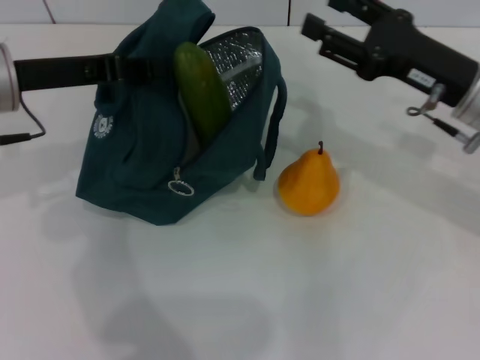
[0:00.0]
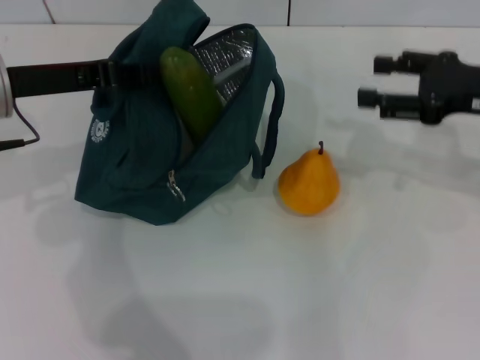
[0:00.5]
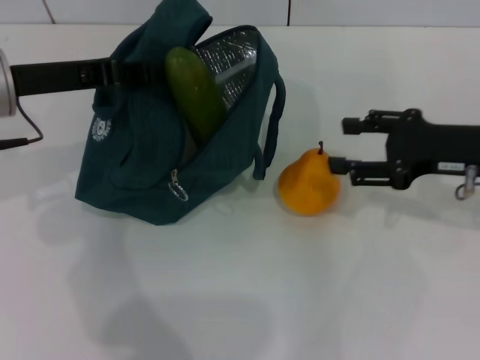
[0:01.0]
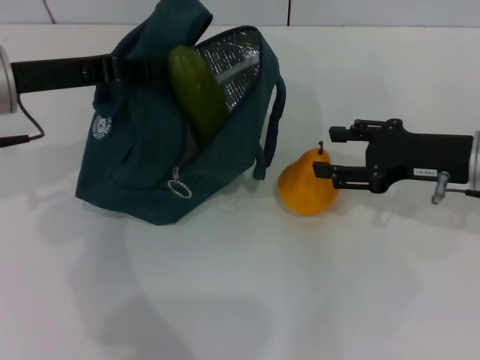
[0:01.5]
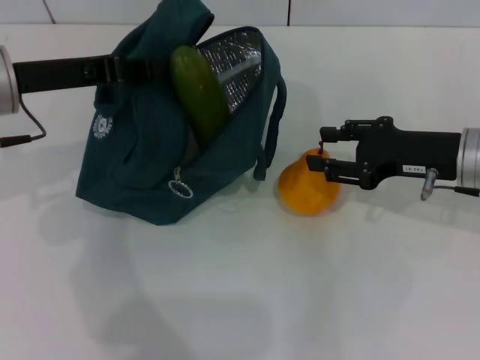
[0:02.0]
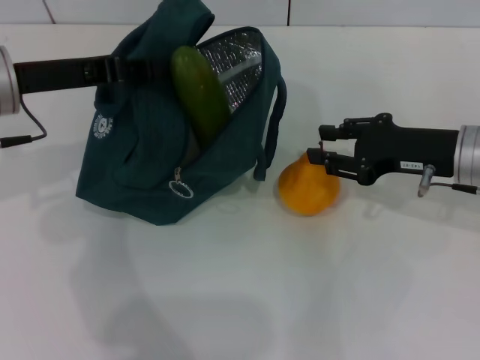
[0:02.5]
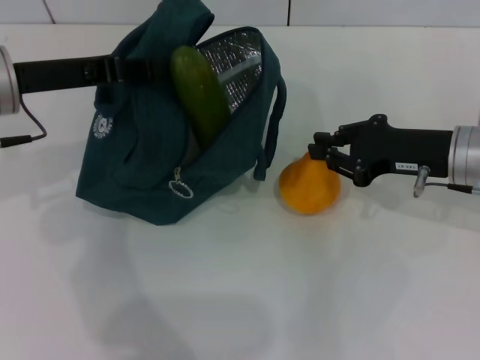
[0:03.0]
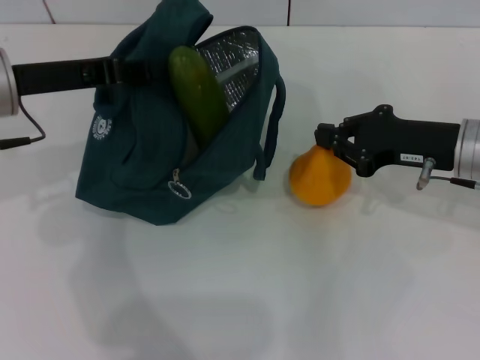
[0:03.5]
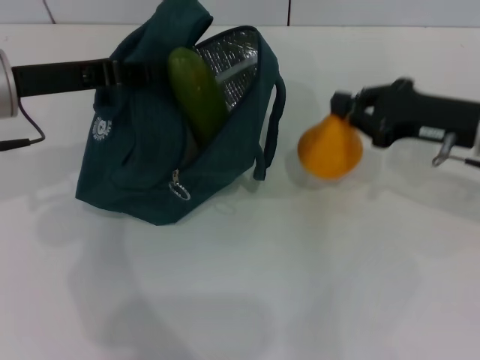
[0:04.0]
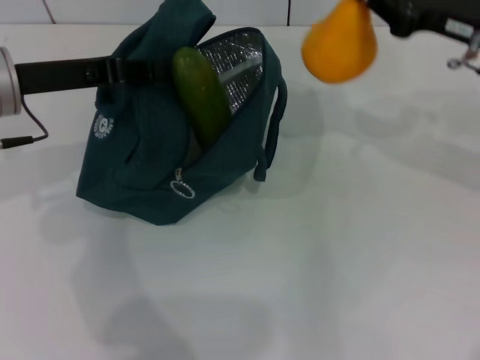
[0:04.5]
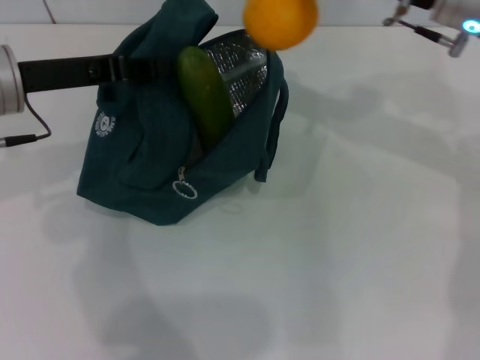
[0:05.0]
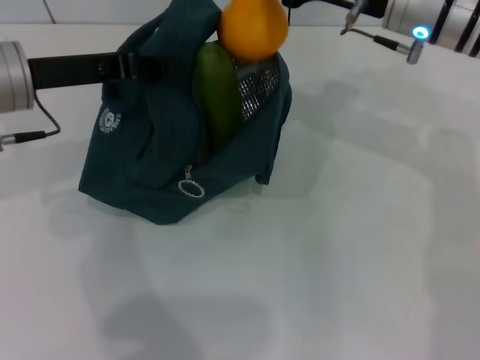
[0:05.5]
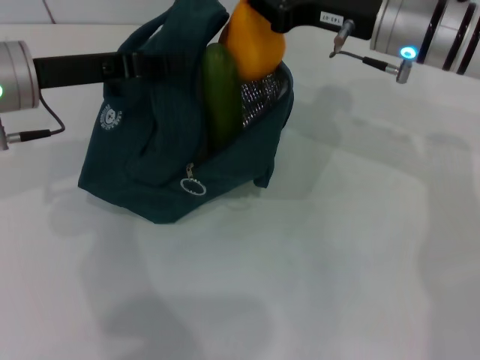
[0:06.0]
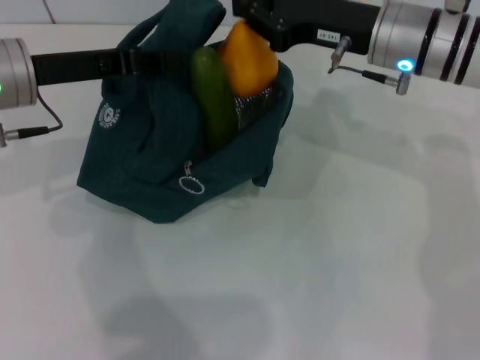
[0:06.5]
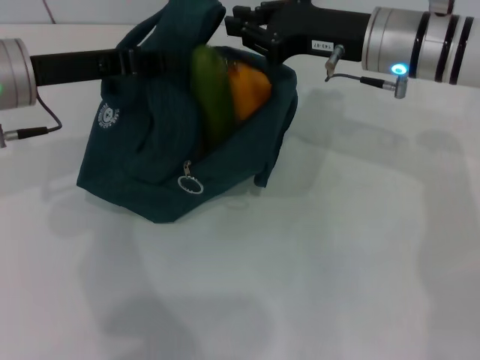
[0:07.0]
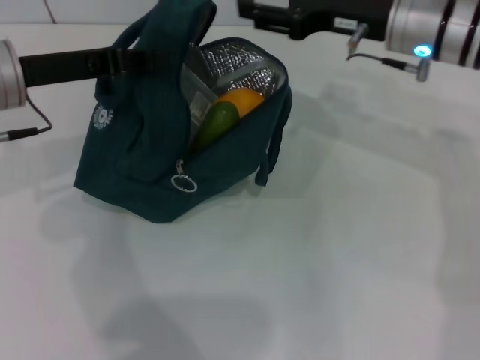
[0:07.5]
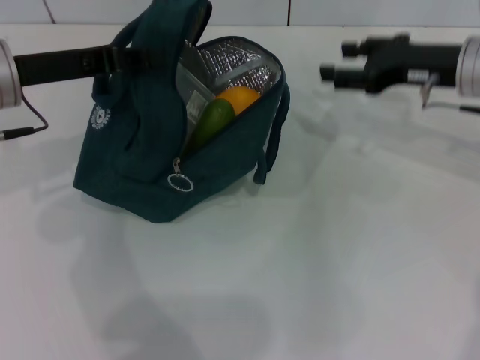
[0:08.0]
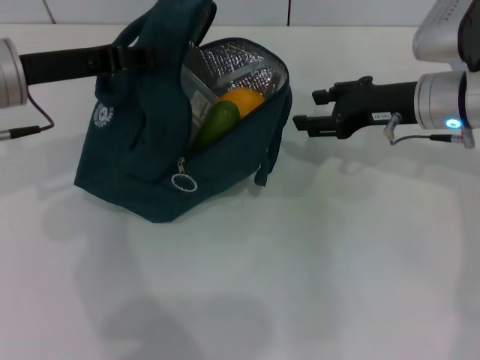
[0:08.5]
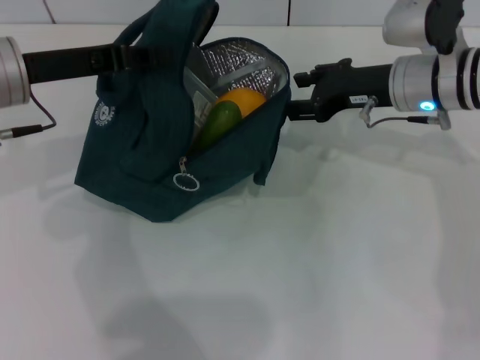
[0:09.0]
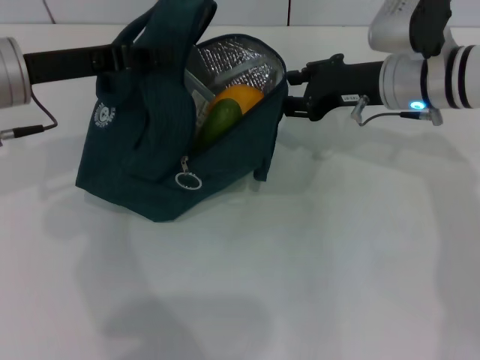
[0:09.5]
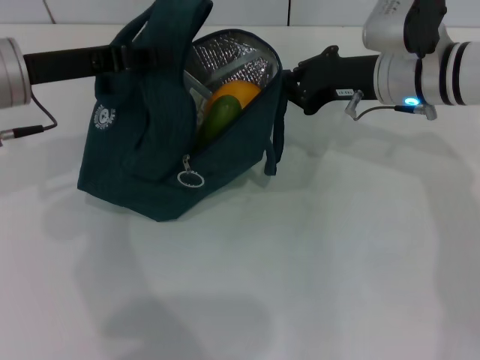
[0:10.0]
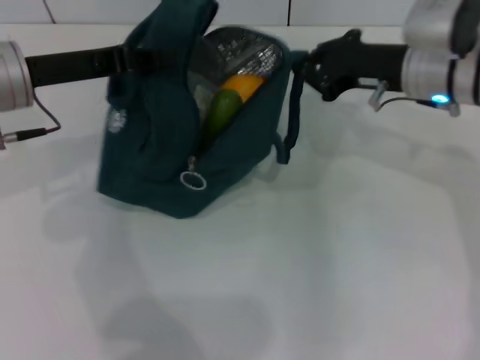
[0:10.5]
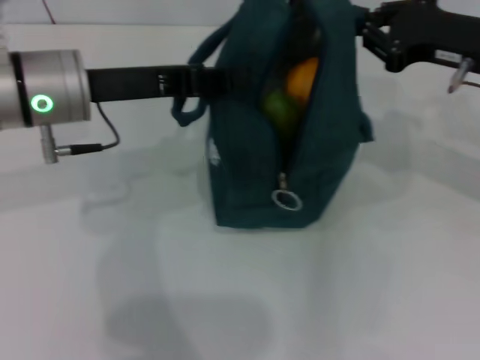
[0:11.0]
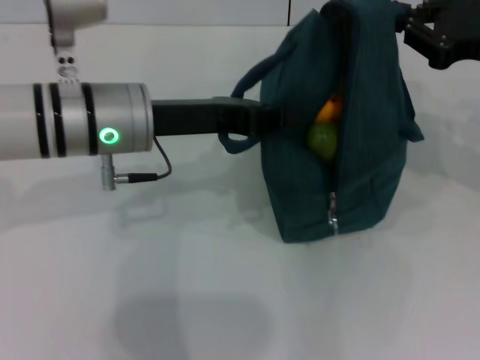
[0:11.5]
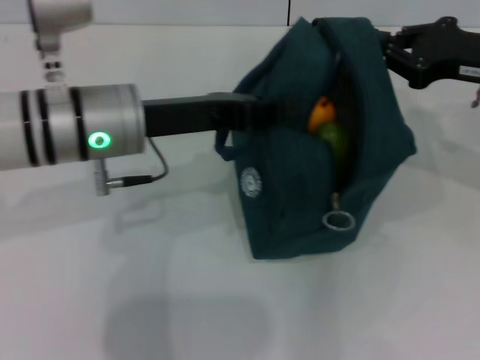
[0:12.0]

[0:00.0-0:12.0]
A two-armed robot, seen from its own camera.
Step, 0:00.0 to 0:03.0: Grab the pear with your right hand.
0:02.0 to 0:04.0: The right gripper closes.
0:04.0 to 0:06.0: The right gripper is displaced to the left, forward and upward by about 15 cm.
0:06.0 to 0:08.0: The right gripper heads to the right, covering some 10 cm, and opens.
0:08.0 to 0:10.0: The right gripper heads to the left, covering about 5 cm, and closes.
0:10.0 to 0:12.0: Both grippers move to the right, roughly 10 cm.

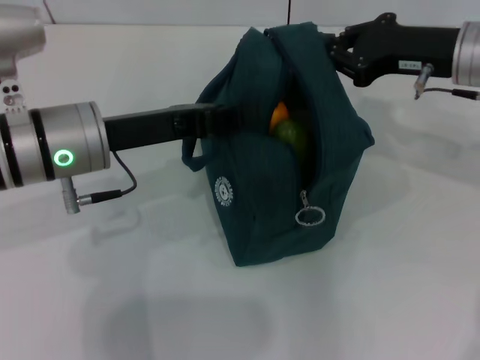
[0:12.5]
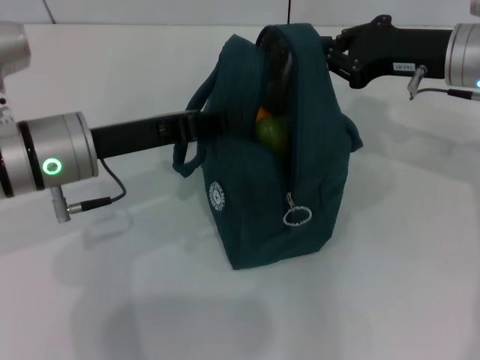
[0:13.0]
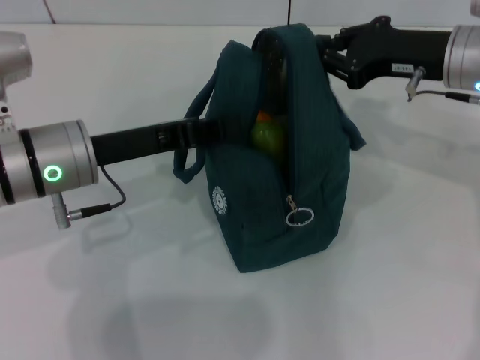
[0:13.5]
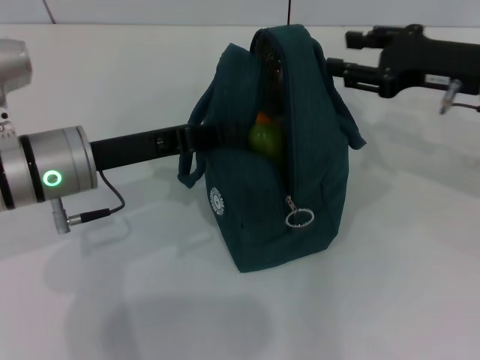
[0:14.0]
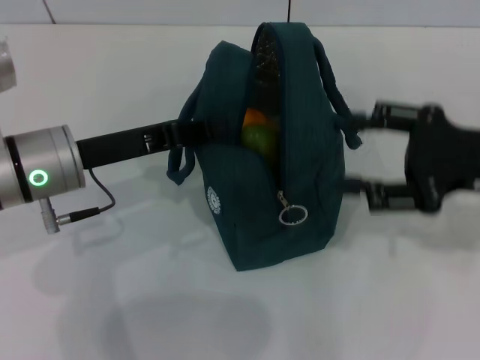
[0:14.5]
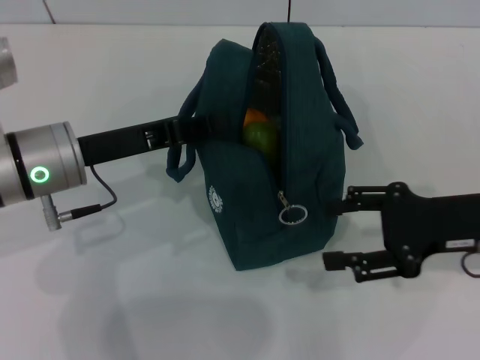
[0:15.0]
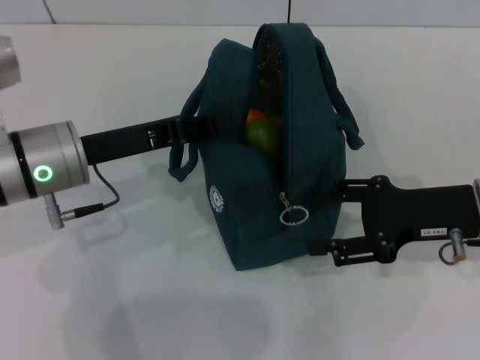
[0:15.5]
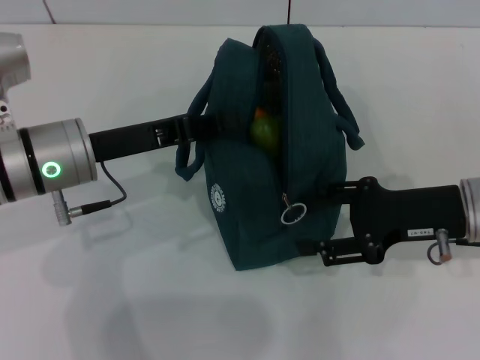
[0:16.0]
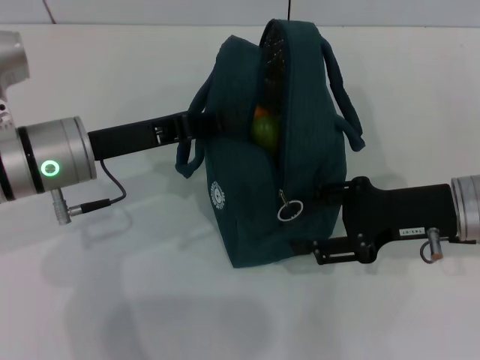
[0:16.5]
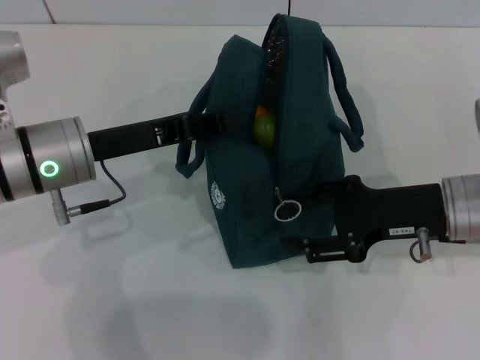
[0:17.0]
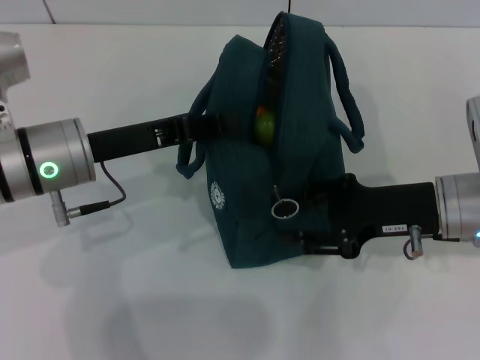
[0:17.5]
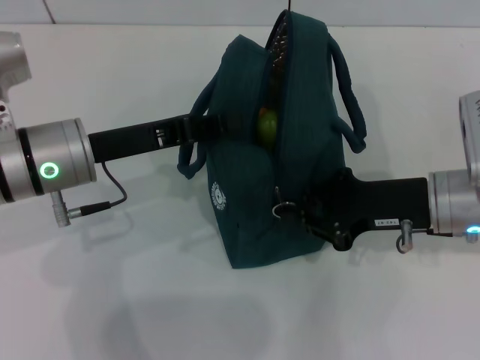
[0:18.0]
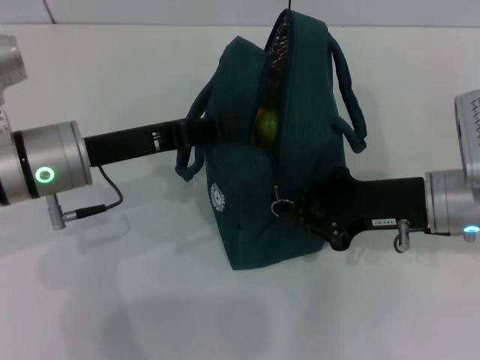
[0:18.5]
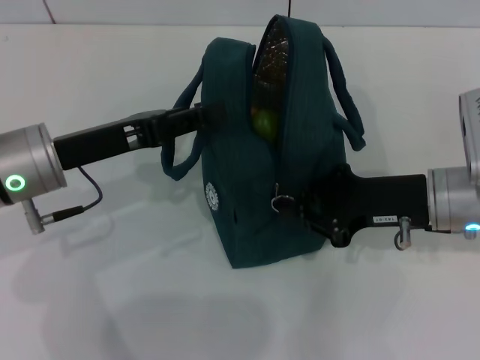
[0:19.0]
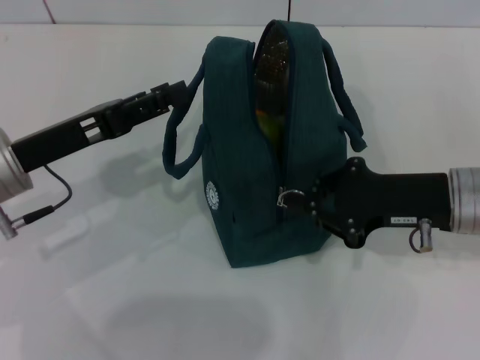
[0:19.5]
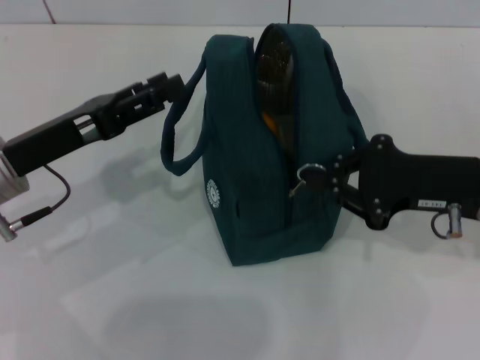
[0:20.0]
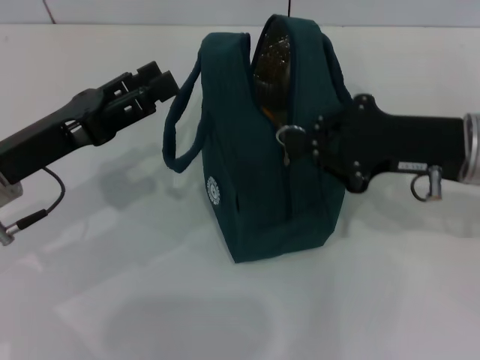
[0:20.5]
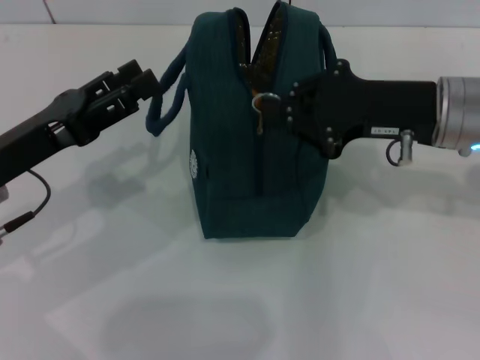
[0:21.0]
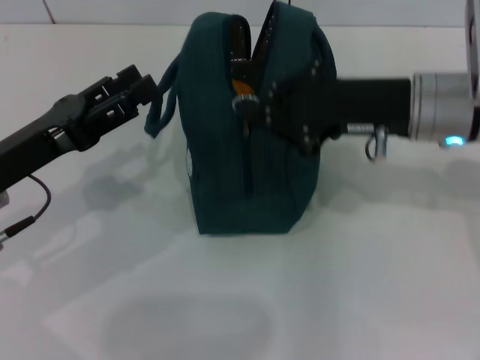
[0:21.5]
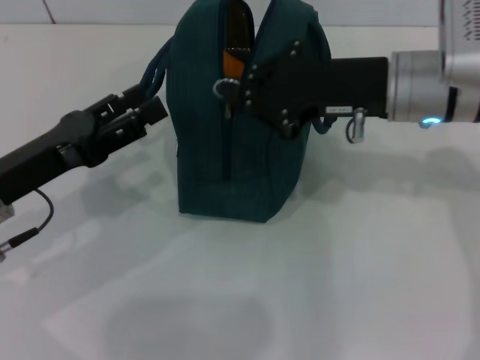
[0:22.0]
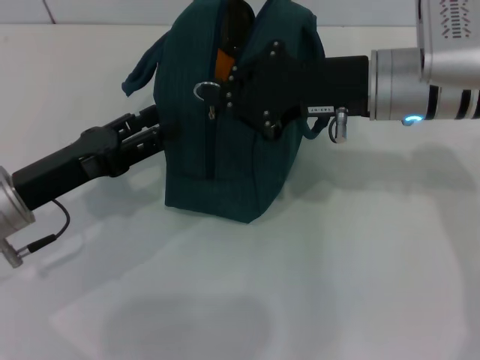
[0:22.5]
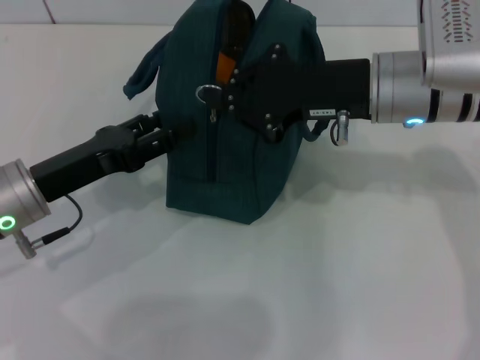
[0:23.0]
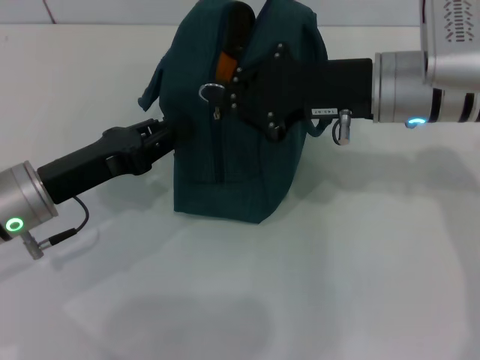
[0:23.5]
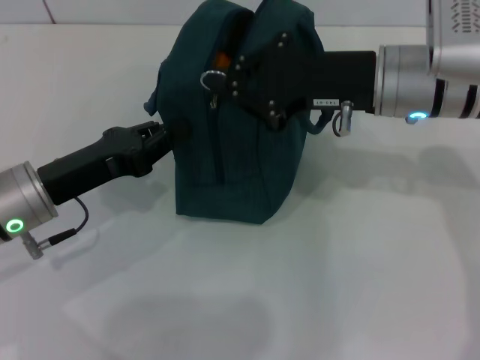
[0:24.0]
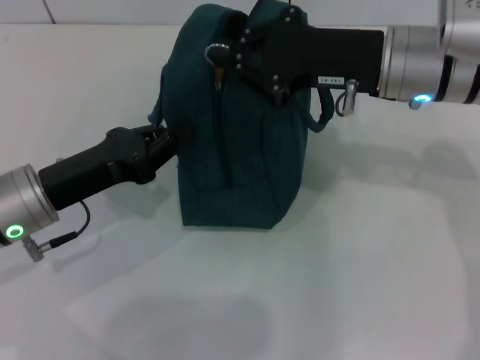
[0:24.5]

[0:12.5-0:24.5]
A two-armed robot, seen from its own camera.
Step, 0:14.5 to 0:19.0: Hold the lunch bag with your left hand.
0:12.5 to 0:14.5: The right gripper shifts some 10 cm backward, and opens up.
0:14.5 to 0:16.5: The right gripper travels downward by some 5 cm.
0:16.5 to 0:18.5: The right gripper closes its fingers.
0:18.5 to 0:20.5: The right gripper moves upward, roughly 5 cm; the left gripper moves roughly 5 cm, and opens.
0:20.5 to 0:22.5: The right gripper shifts approximately 10 cm to the left.
0:22.5 to 0:24.5: The left gripper closes its fingers.

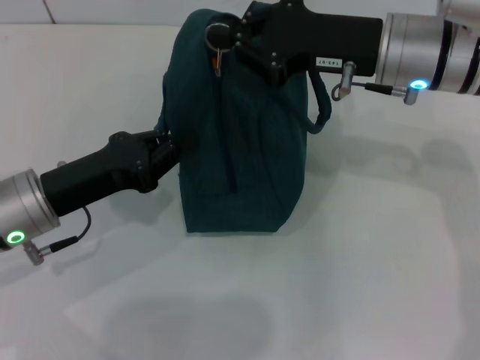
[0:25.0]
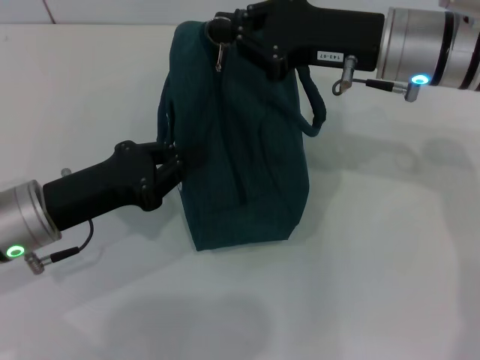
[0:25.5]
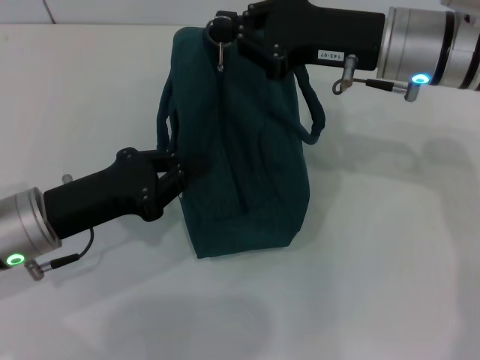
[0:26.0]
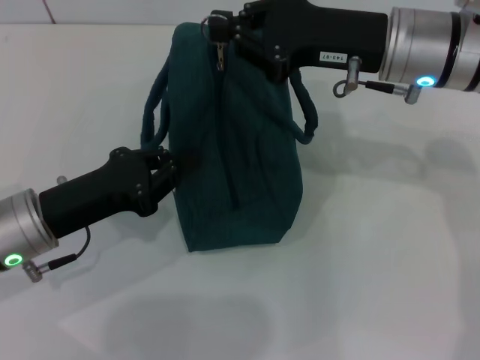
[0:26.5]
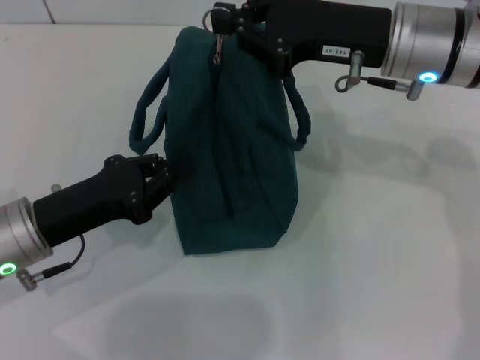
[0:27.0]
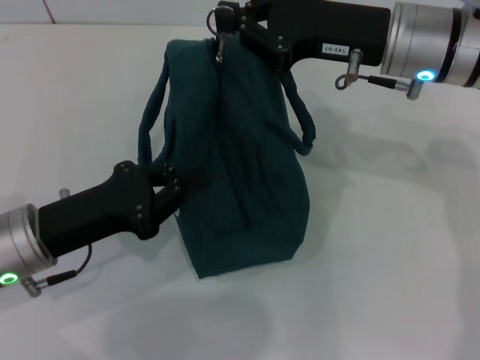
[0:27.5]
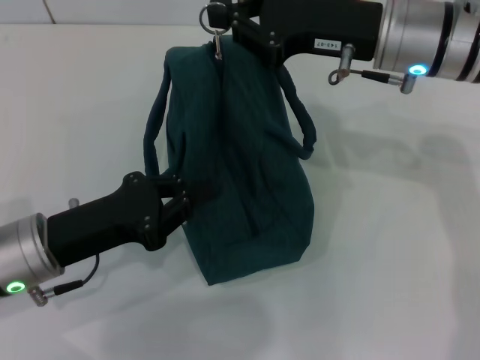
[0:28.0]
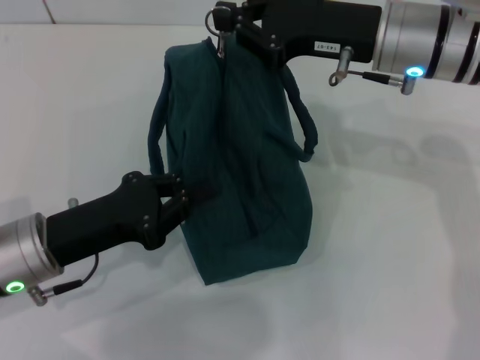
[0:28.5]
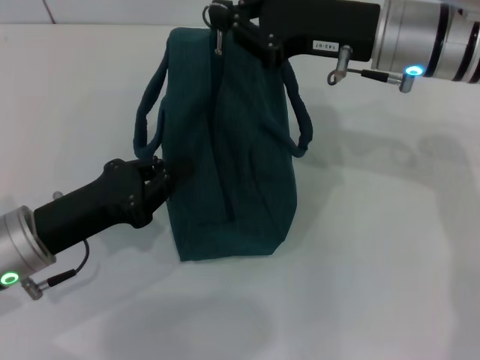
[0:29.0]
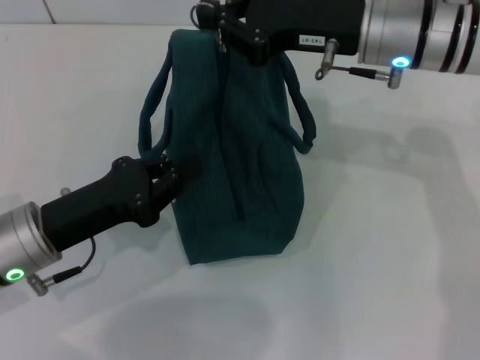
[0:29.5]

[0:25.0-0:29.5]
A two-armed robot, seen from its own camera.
0:25.0 to 0:29.5: The grippers move only a little.
